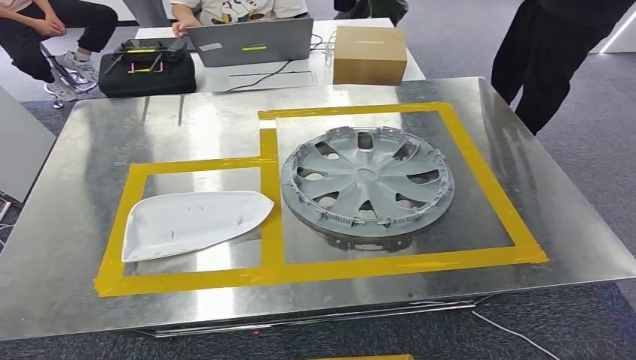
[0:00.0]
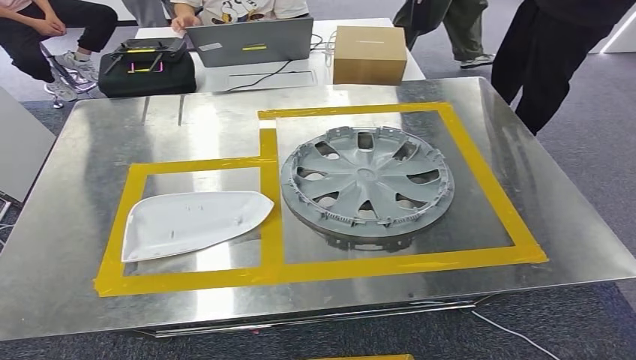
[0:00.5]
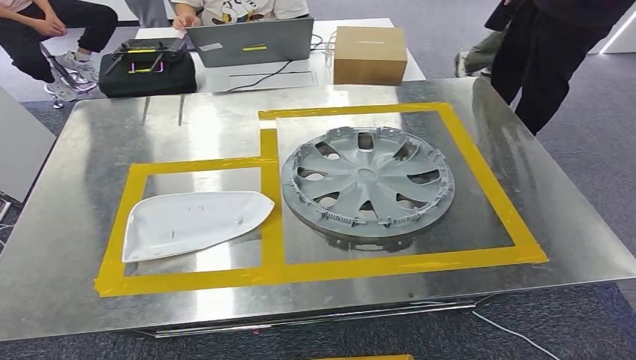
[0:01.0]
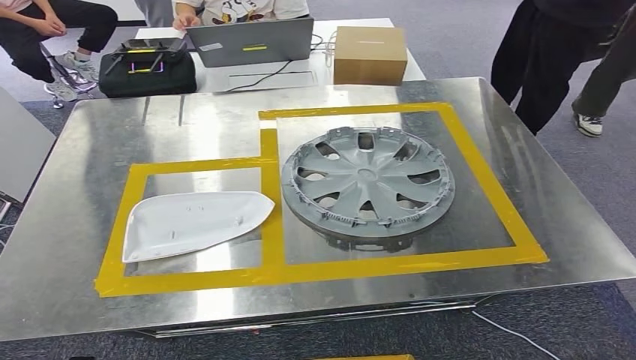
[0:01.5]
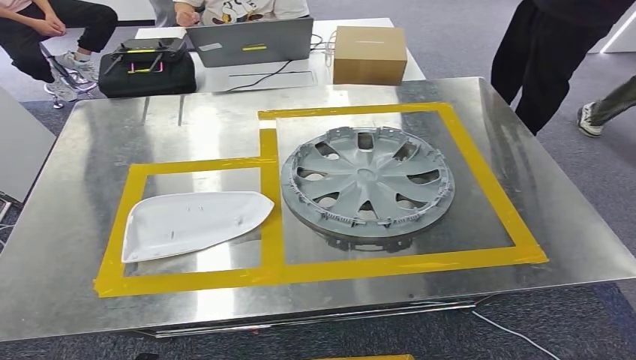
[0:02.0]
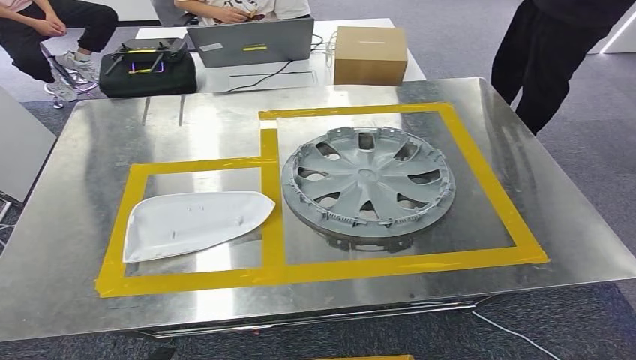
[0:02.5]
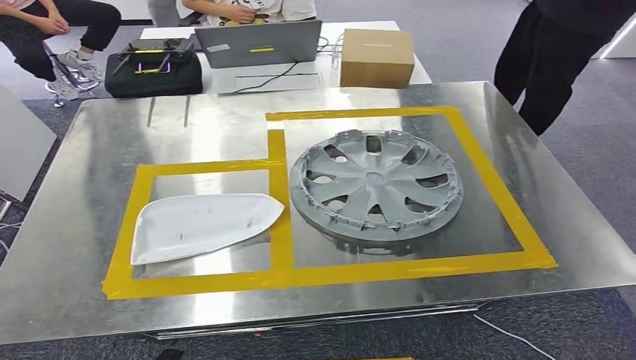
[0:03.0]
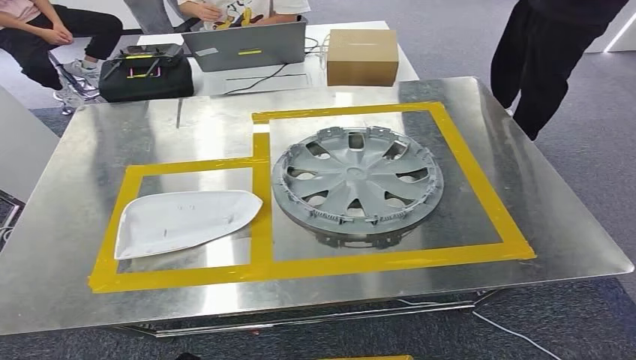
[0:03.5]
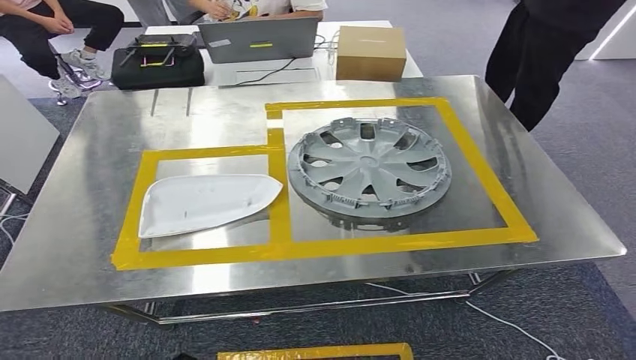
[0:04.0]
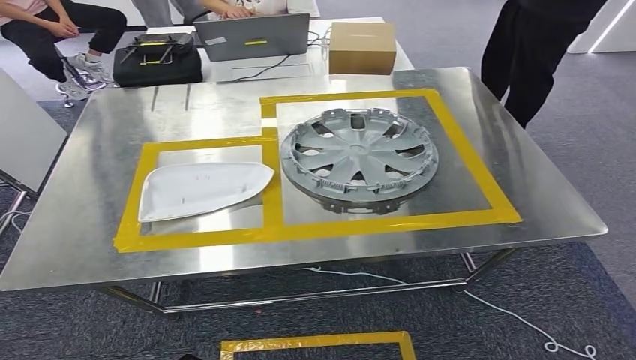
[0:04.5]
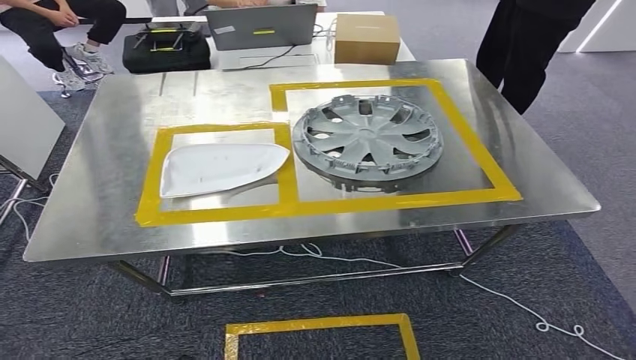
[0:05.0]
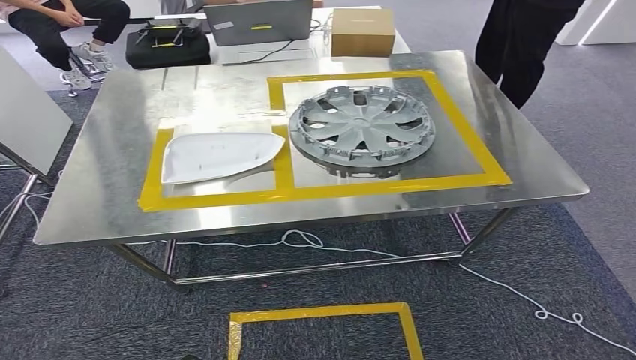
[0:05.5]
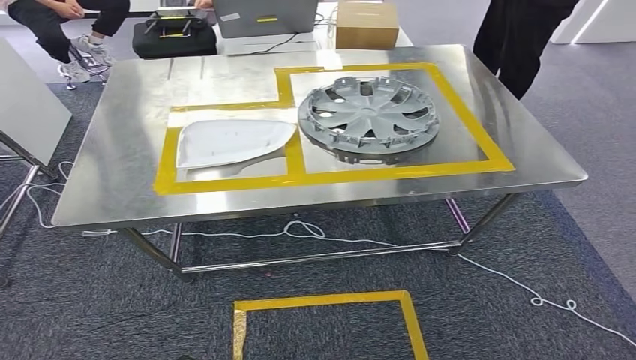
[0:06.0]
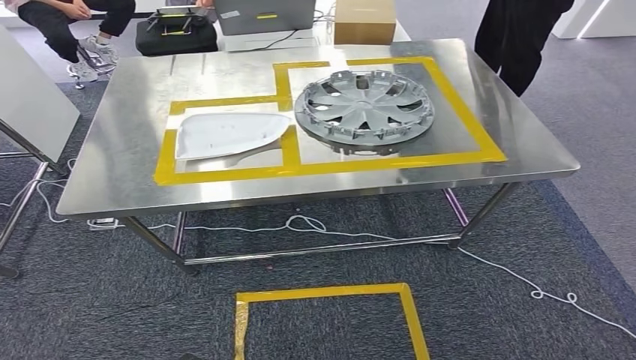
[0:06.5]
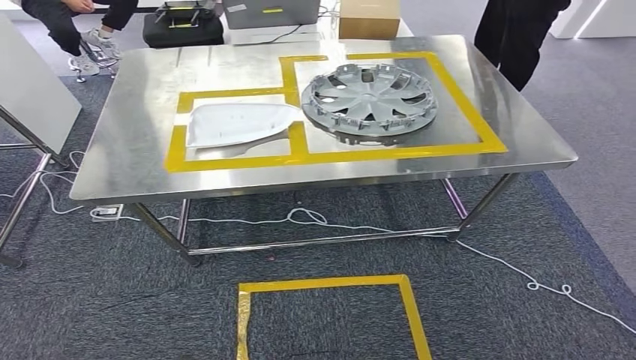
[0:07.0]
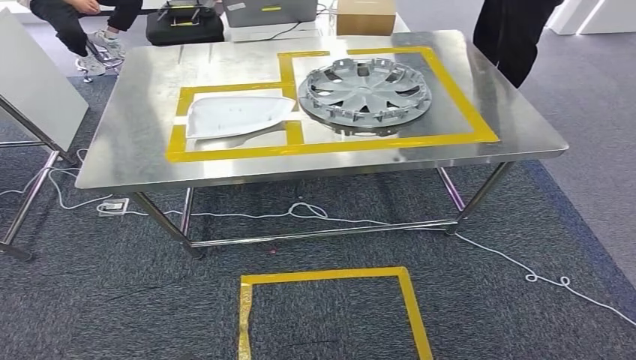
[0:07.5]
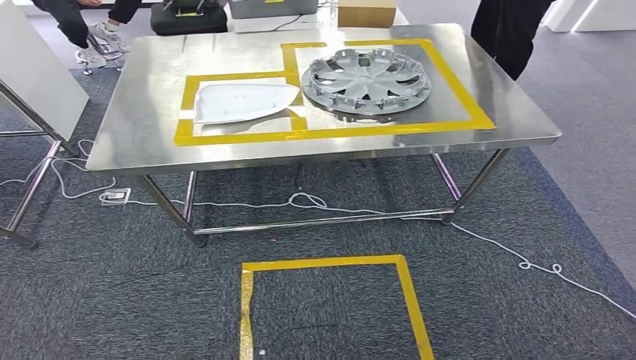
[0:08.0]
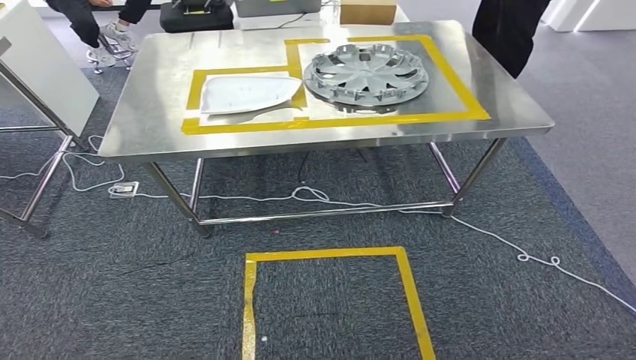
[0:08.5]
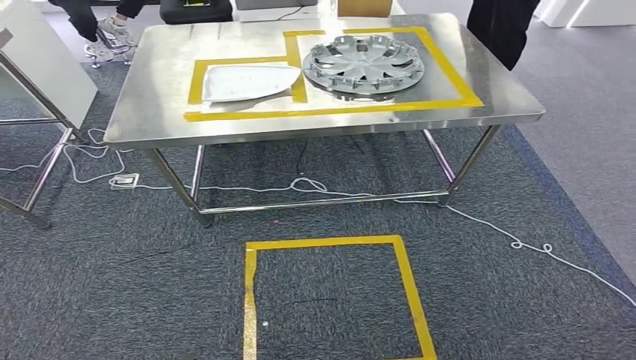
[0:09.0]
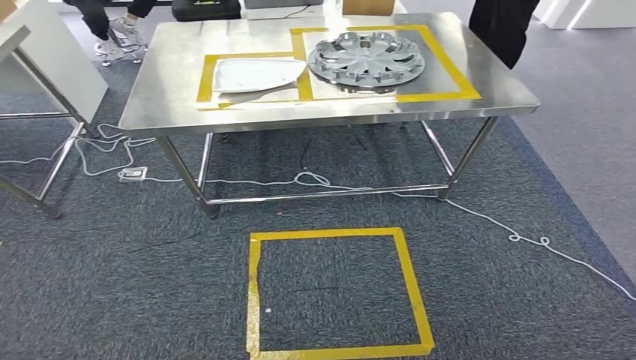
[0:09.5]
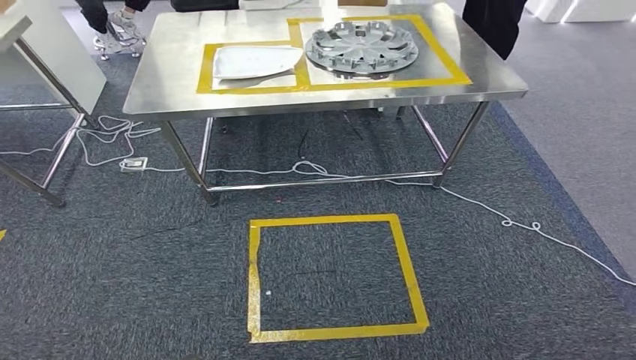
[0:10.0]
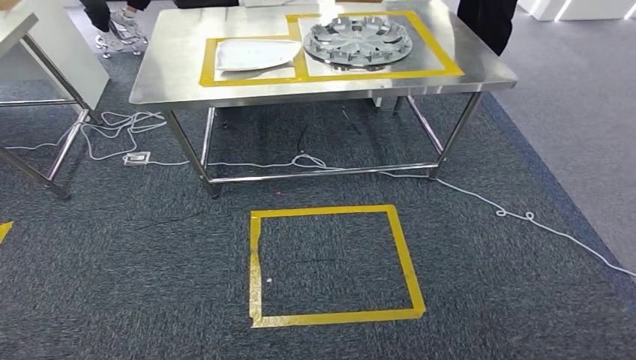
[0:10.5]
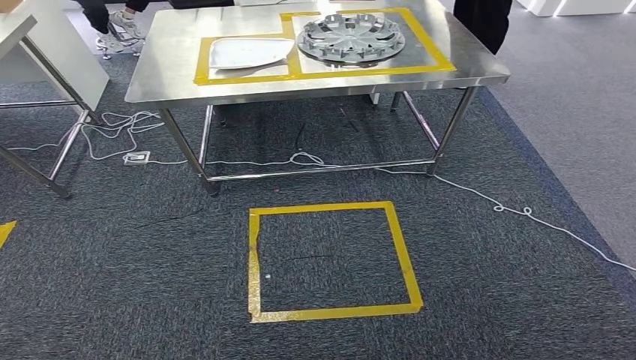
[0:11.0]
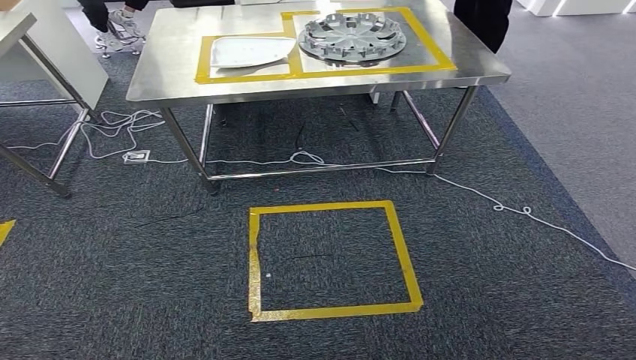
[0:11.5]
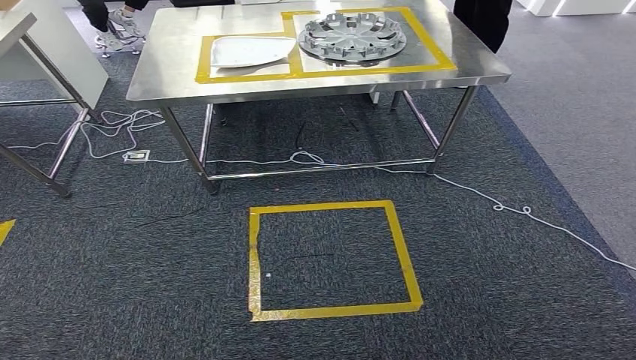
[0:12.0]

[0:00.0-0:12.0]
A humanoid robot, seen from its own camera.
0:00.0 to 0:02.0: The left hand is displaced to the right and downward by roughly 35 cm.

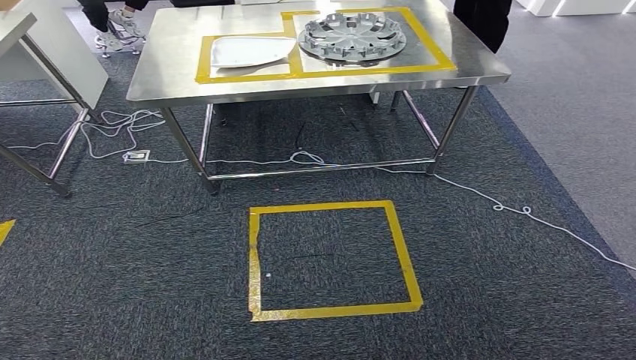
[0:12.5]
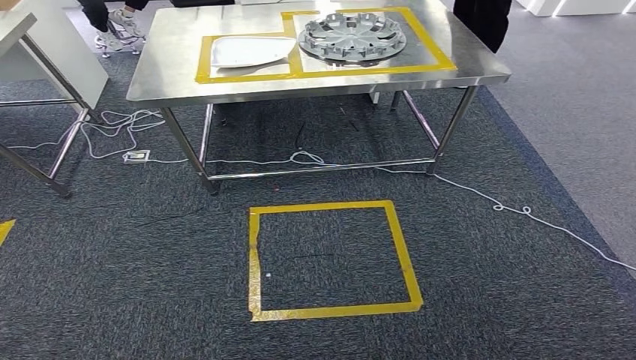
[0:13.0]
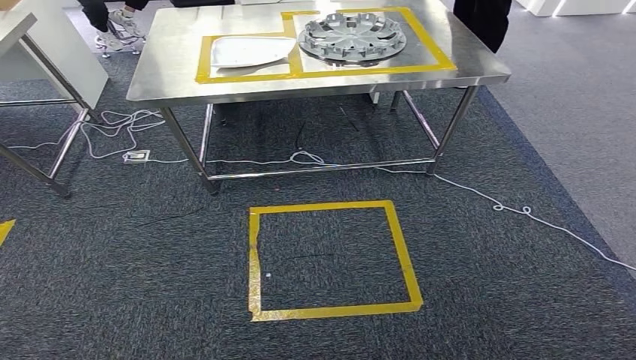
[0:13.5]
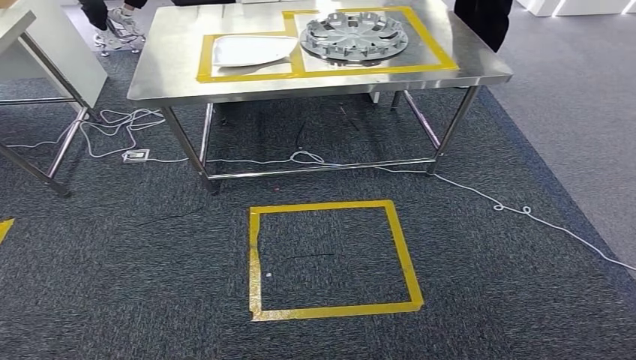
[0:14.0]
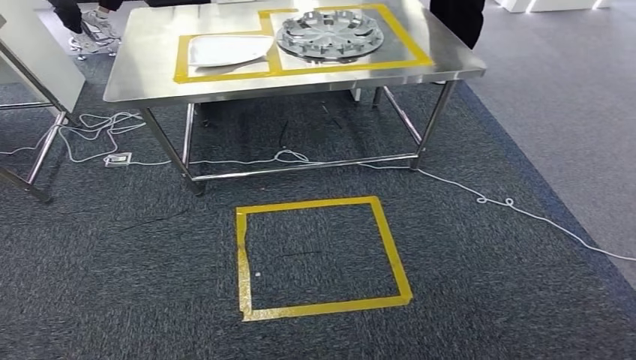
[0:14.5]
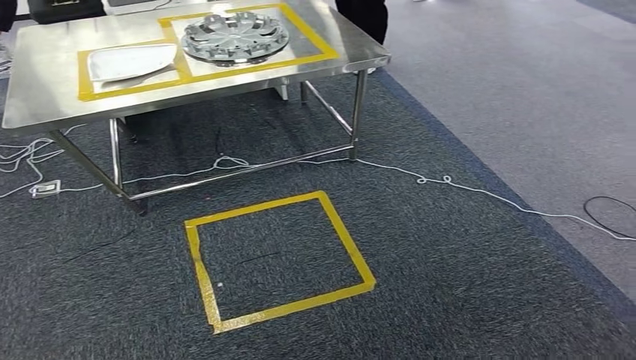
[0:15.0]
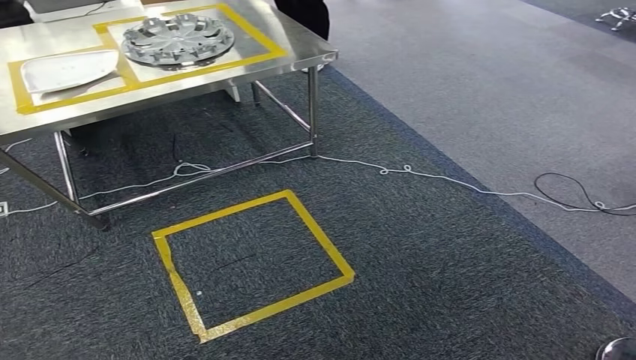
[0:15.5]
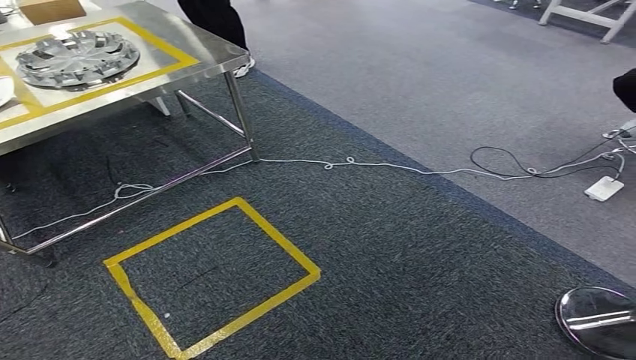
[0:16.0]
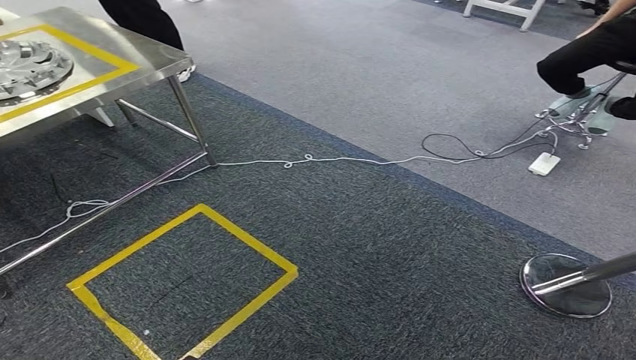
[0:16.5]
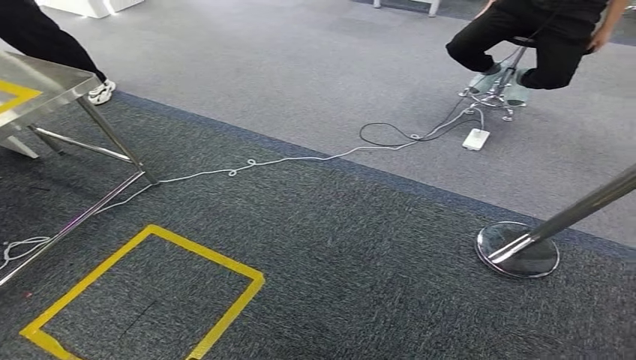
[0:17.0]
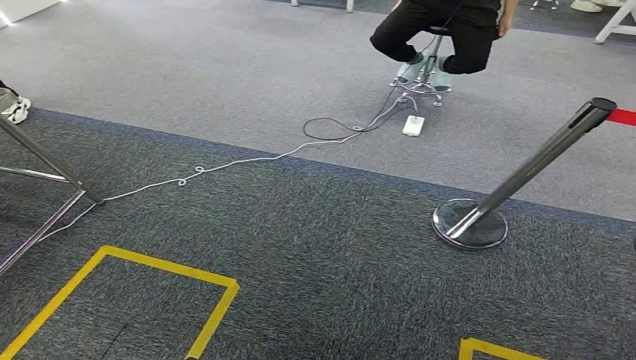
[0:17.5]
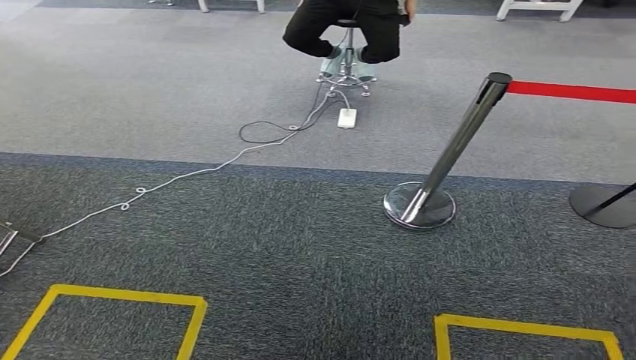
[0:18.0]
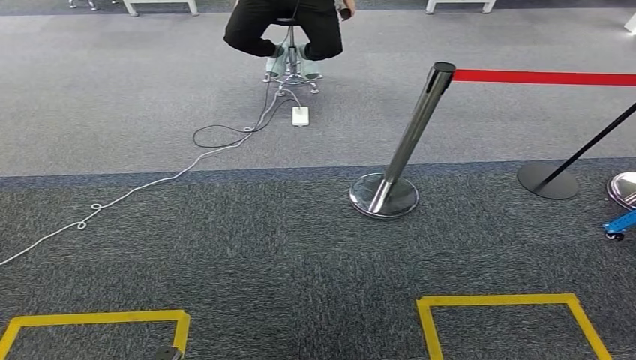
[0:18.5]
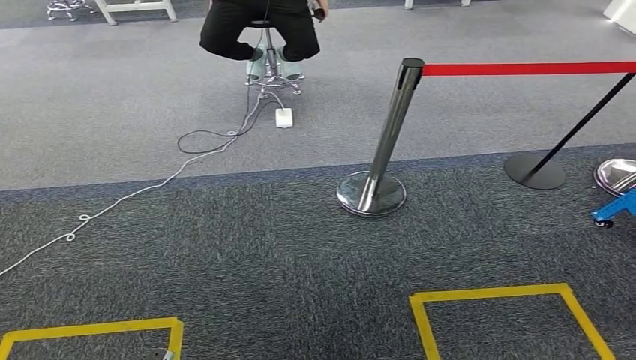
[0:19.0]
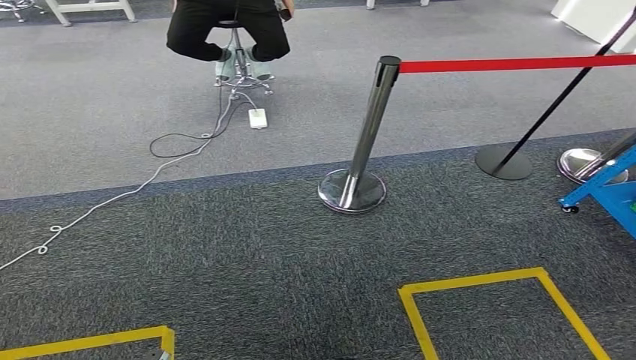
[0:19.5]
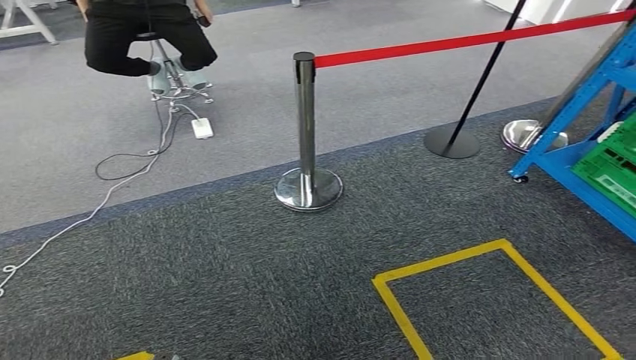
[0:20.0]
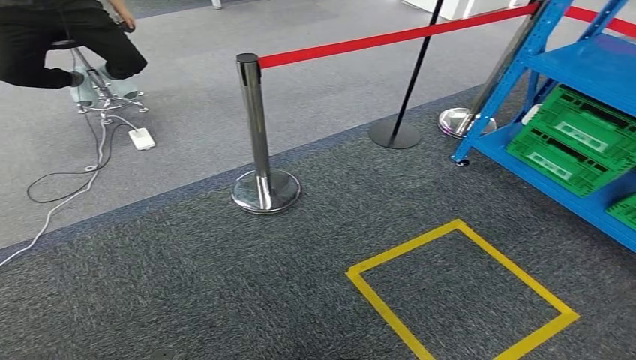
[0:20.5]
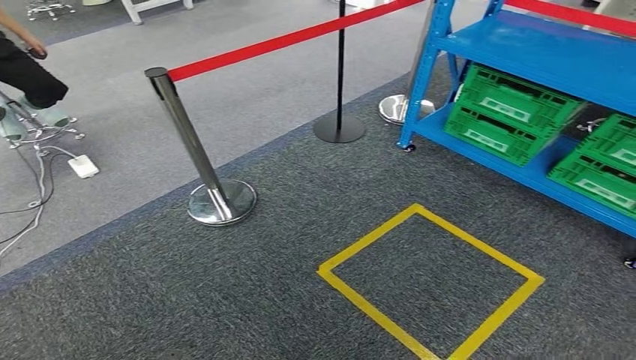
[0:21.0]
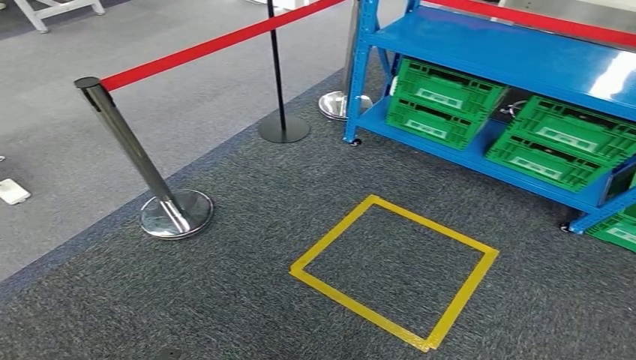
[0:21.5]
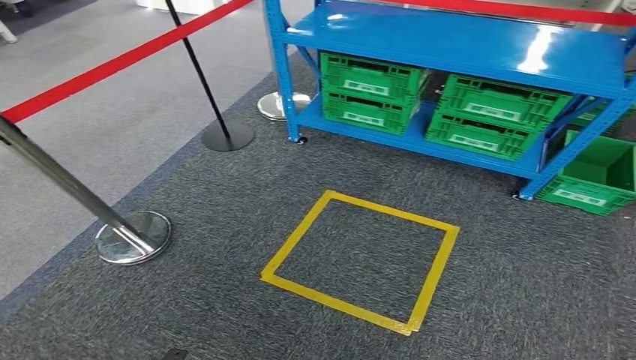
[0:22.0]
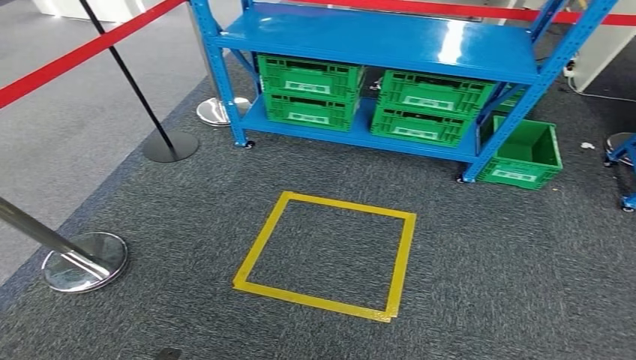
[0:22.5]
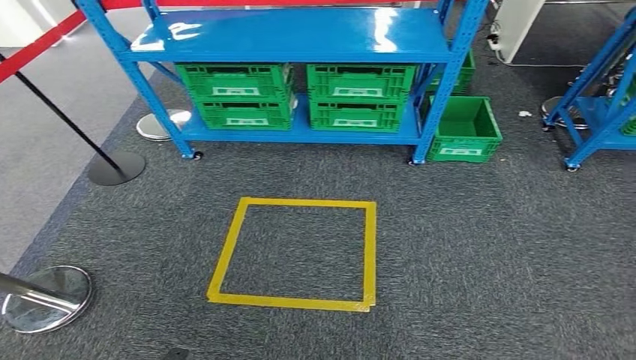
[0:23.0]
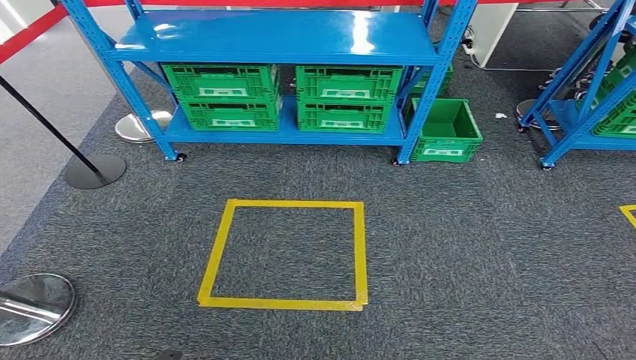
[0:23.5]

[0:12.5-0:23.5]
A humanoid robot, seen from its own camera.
Step, 0:12.5 to 0:23.5: Return to the initial position at the workbench.
